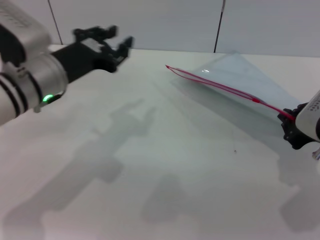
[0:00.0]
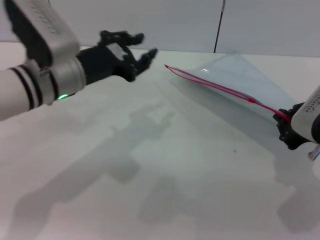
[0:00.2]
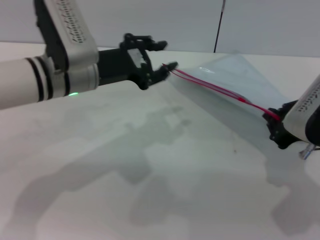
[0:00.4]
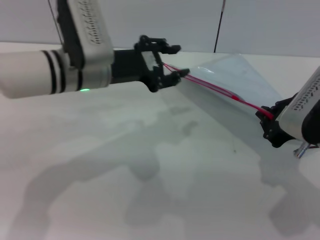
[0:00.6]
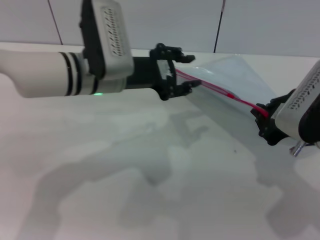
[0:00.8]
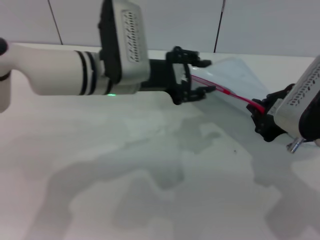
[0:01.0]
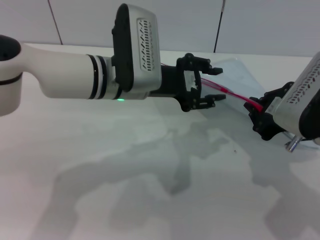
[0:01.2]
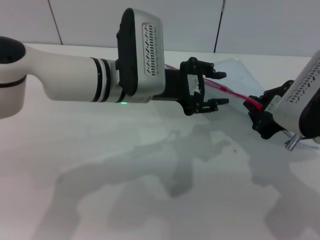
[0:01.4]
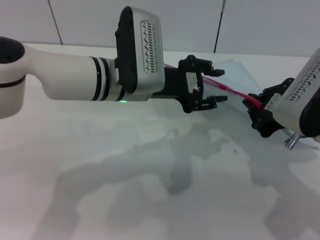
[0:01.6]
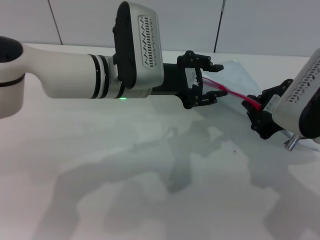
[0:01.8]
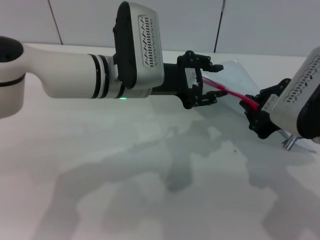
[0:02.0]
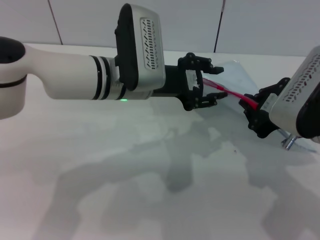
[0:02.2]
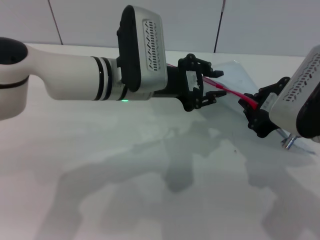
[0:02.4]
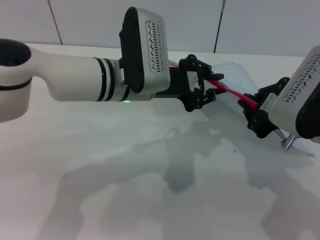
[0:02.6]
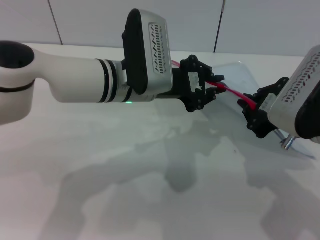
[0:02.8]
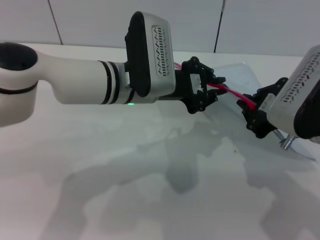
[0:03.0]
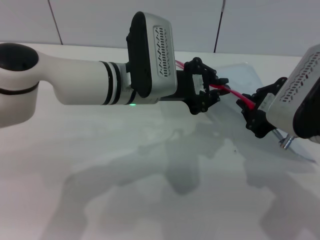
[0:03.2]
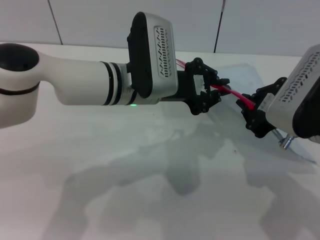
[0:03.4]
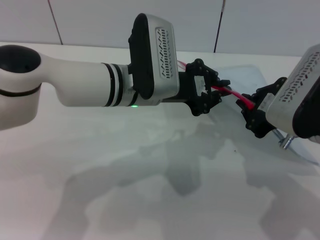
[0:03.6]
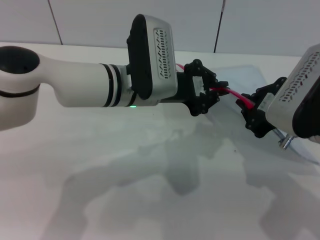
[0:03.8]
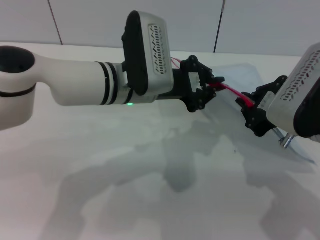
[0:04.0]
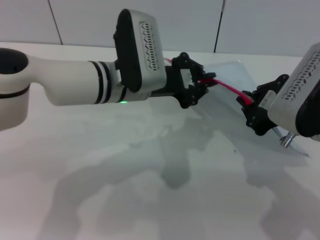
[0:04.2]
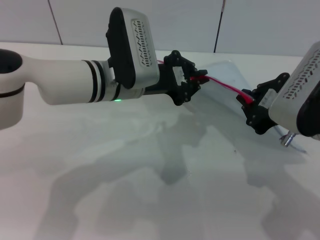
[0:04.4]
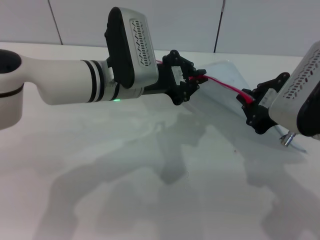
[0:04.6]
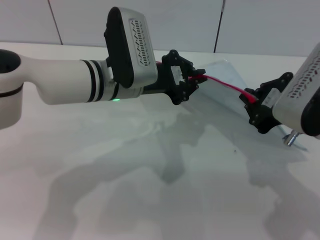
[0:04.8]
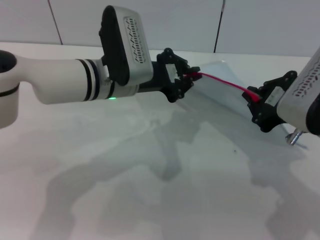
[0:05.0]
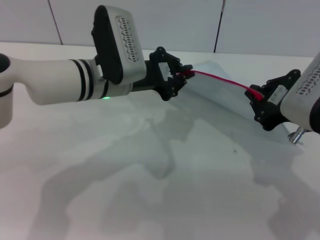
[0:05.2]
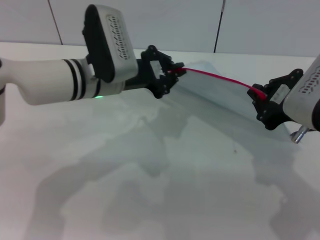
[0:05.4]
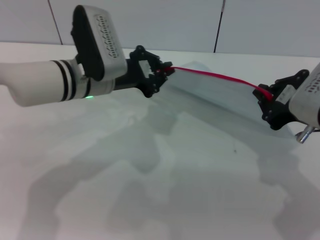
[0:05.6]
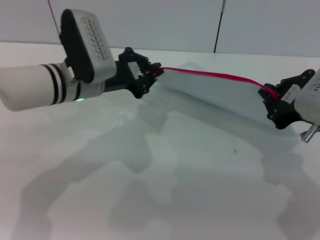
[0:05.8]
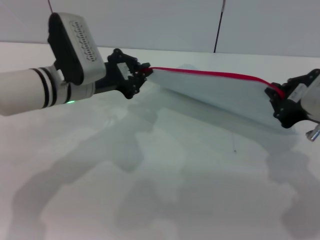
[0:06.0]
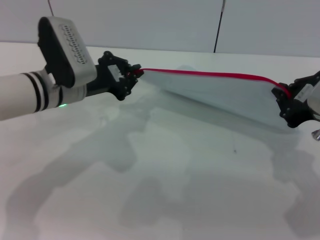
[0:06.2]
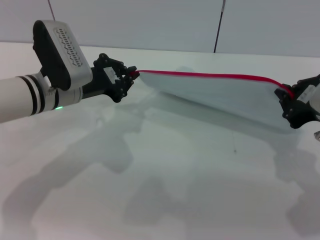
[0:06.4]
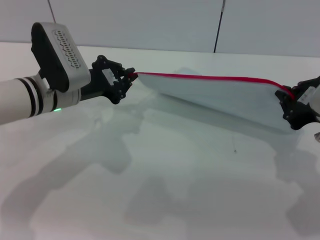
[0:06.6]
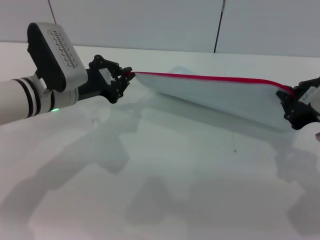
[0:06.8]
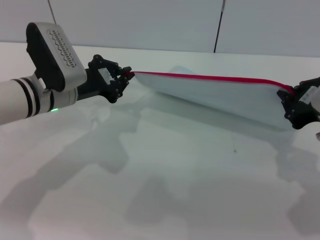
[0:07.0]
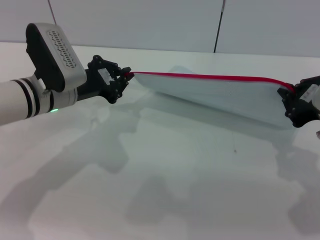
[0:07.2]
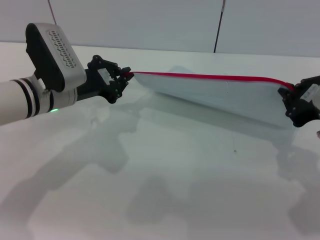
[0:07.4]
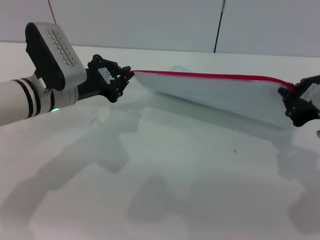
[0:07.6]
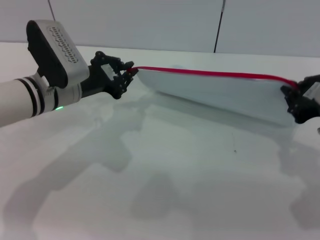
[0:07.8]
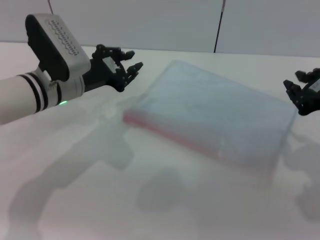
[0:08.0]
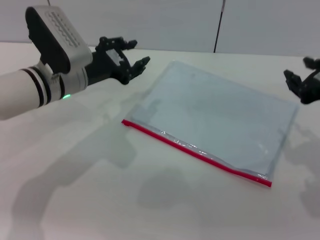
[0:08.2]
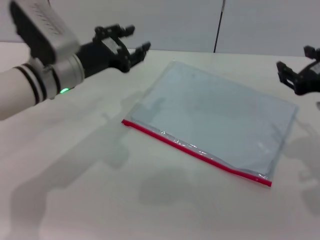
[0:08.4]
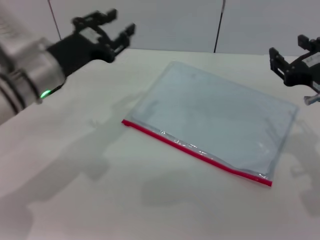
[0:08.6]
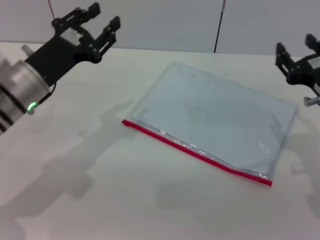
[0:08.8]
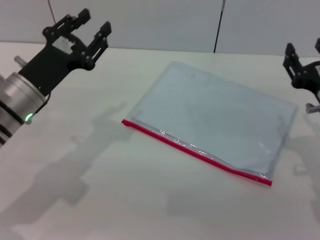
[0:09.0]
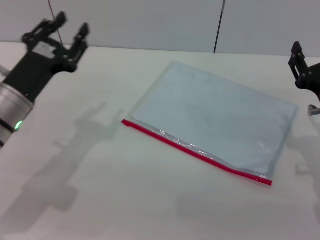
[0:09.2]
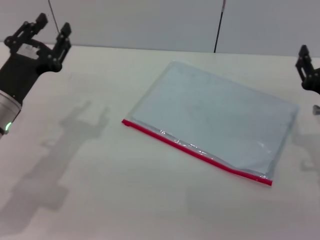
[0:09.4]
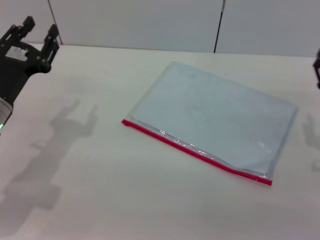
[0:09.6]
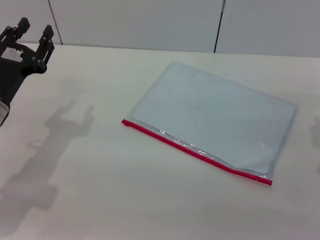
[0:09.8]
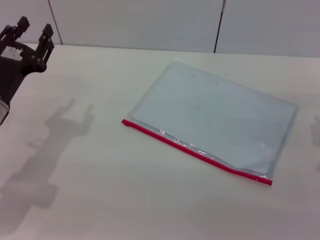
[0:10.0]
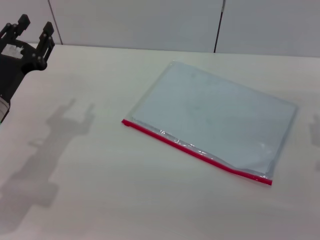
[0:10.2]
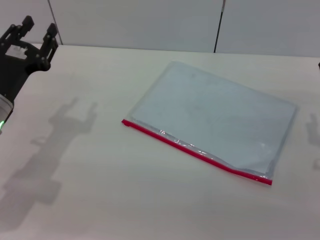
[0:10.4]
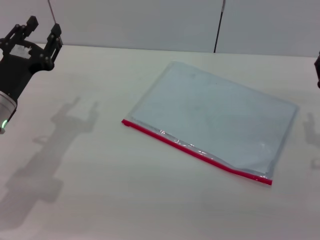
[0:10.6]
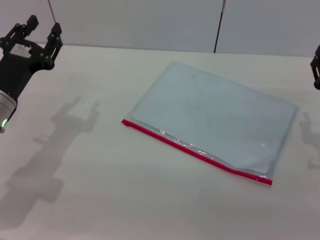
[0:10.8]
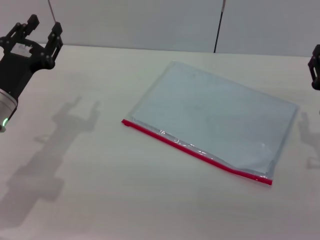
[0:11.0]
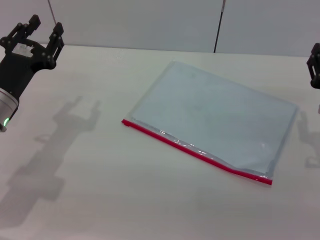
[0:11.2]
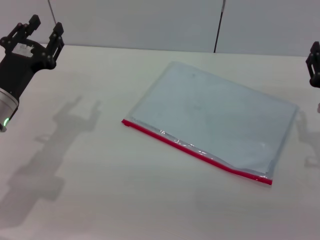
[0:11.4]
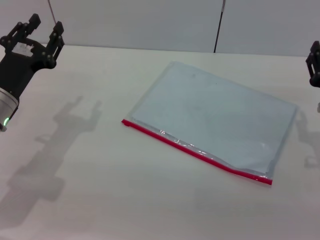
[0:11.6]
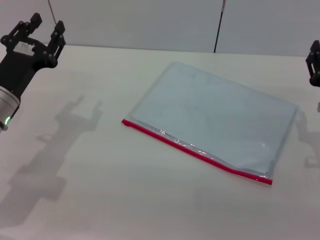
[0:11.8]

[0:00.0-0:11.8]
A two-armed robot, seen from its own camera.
Step, 0:00.0 to 0:07.8: Pulling up the zipper on the transparent plastic bag with the left gripper to close it.
Step, 0:08.0 to 0:08.4: Place the transparent plastic bag.
0:00.0 to 0:01.4: The left gripper is displaced to the right by roughly 10 cm.
0:01.4 to 0:03.0: The left gripper closes its fingers.
0:03.0 to 0:04.4: The grippers stay close to where they were, moving slightly.
0:04.4 to 0:06.0: The left gripper shifts some 10 cm to the left.
0:06.0 to 0:07.4: The grippers stay close to where they were, moving slightly.
0:07.4 to 0:08.8: The right gripper travels downward by roughly 5 cm, and opens its fingers. Meanwhile the left gripper changes place by about 5 cm, and opens up.
0:08.8 to 0:10.4: The left gripper moves roughly 5 cm, while the right gripper heads downward, covering some 5 cm.
0:10.4 to 0:11.8: Neither gripper changes place.

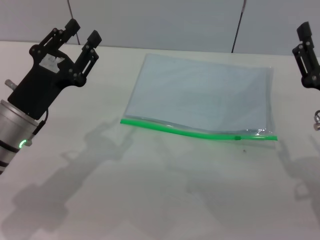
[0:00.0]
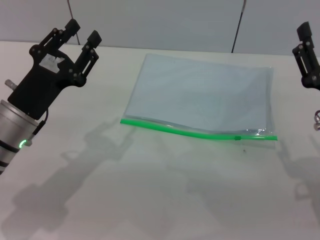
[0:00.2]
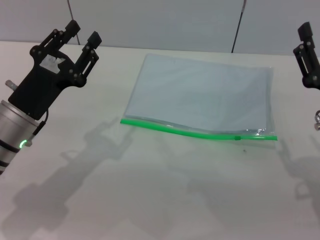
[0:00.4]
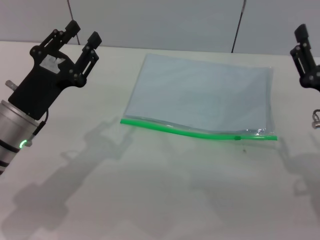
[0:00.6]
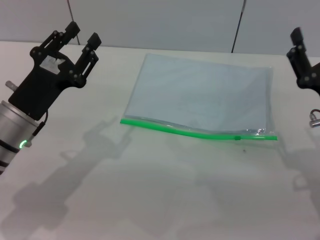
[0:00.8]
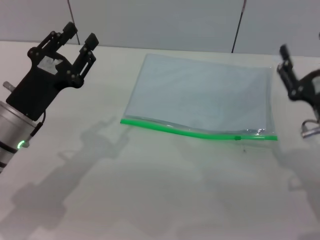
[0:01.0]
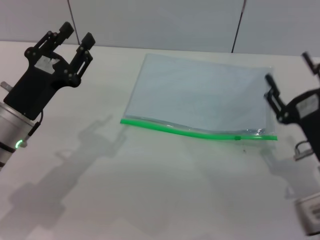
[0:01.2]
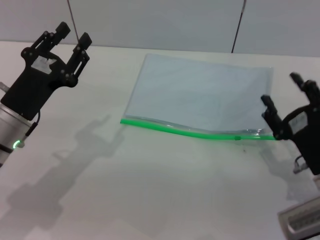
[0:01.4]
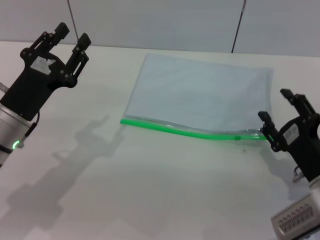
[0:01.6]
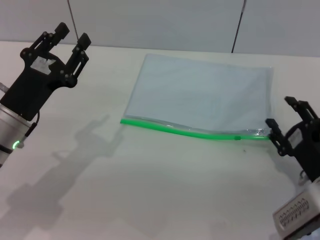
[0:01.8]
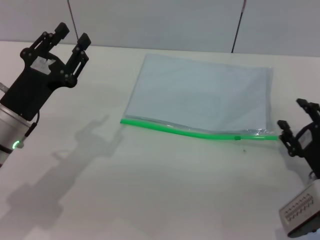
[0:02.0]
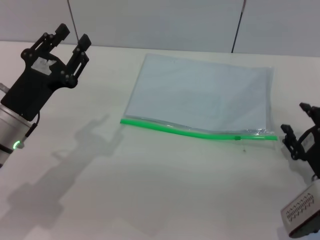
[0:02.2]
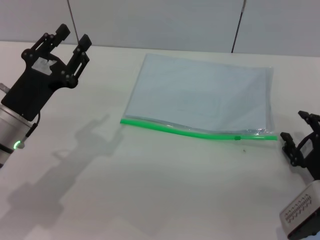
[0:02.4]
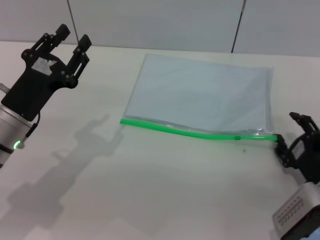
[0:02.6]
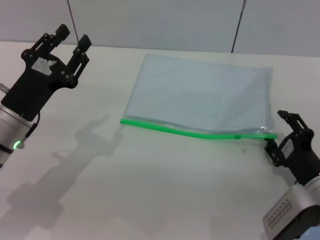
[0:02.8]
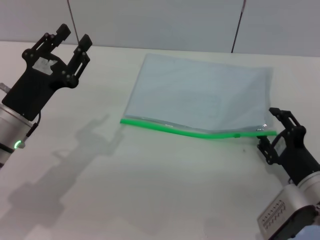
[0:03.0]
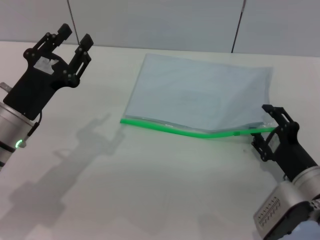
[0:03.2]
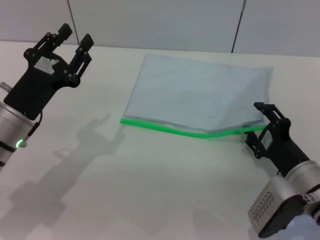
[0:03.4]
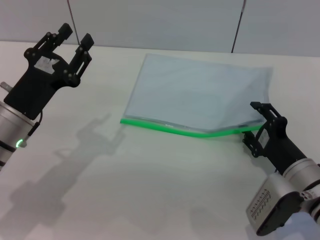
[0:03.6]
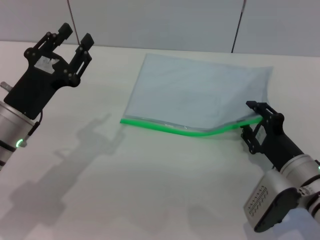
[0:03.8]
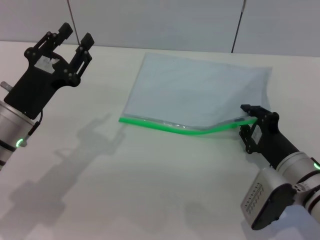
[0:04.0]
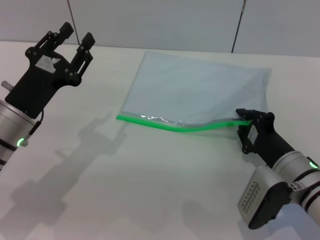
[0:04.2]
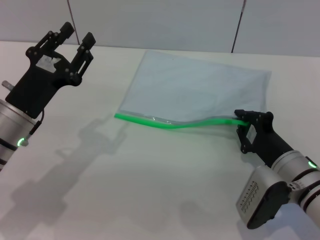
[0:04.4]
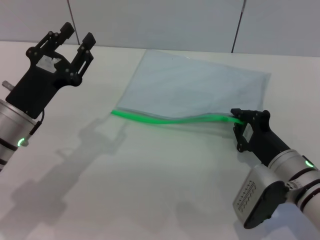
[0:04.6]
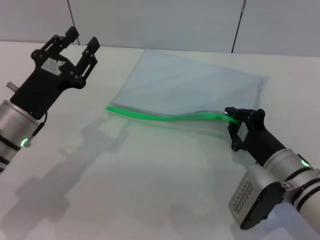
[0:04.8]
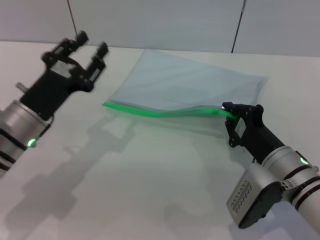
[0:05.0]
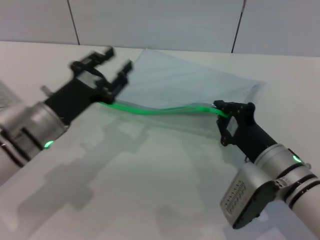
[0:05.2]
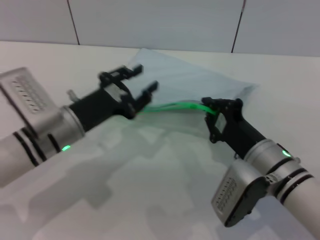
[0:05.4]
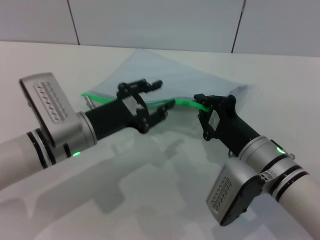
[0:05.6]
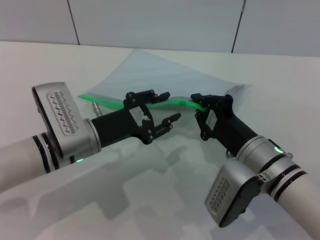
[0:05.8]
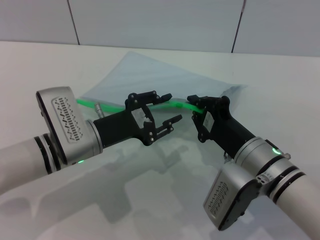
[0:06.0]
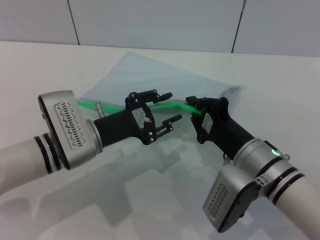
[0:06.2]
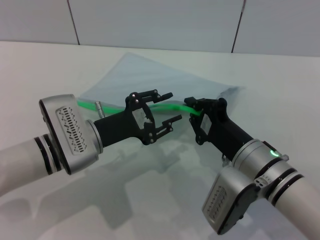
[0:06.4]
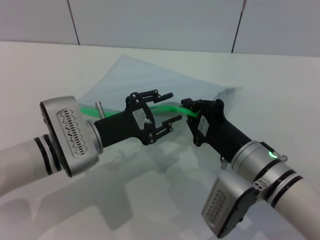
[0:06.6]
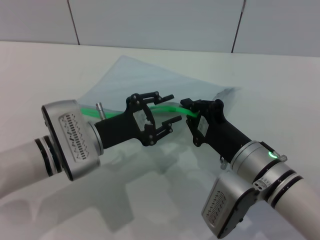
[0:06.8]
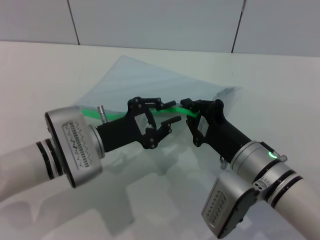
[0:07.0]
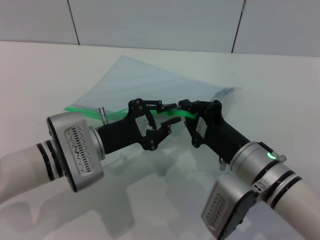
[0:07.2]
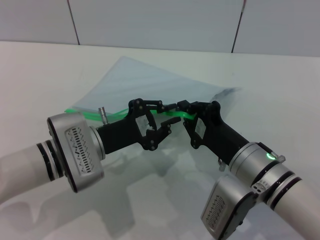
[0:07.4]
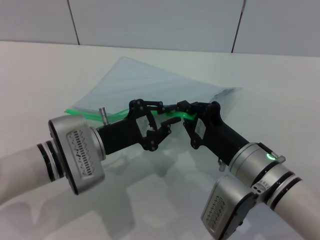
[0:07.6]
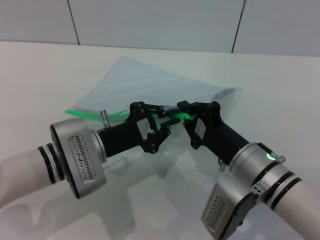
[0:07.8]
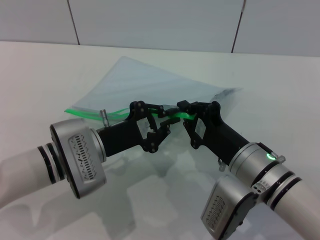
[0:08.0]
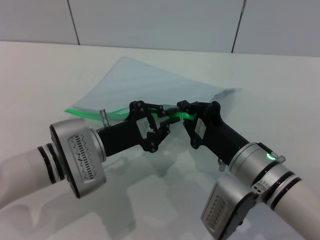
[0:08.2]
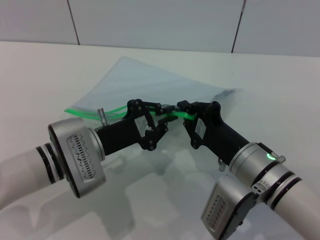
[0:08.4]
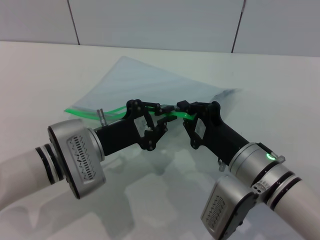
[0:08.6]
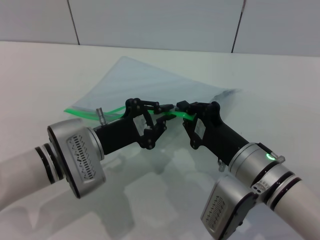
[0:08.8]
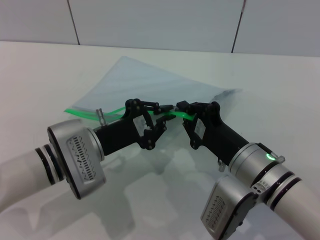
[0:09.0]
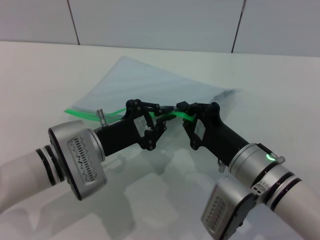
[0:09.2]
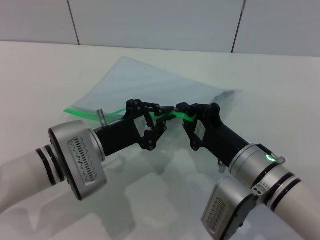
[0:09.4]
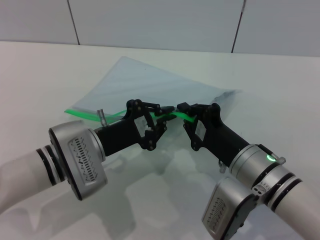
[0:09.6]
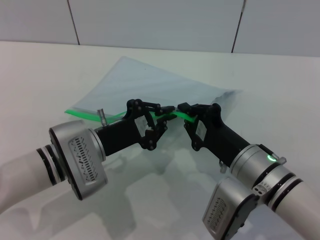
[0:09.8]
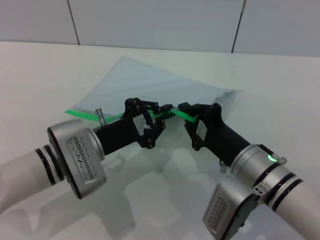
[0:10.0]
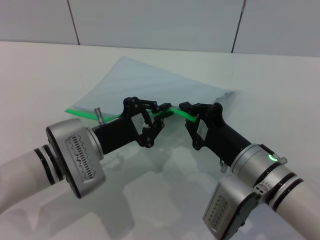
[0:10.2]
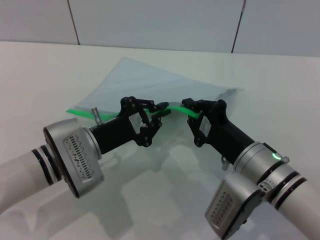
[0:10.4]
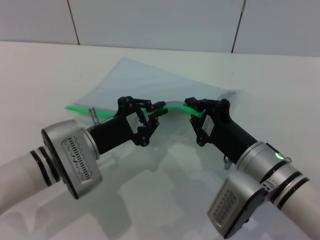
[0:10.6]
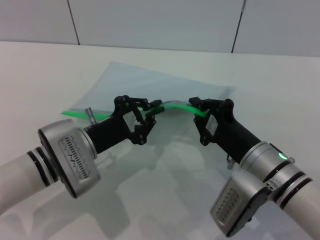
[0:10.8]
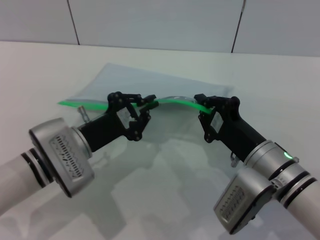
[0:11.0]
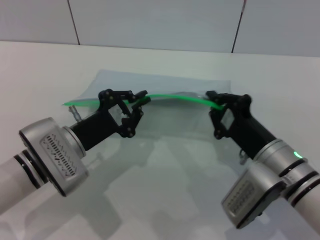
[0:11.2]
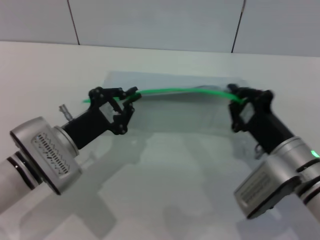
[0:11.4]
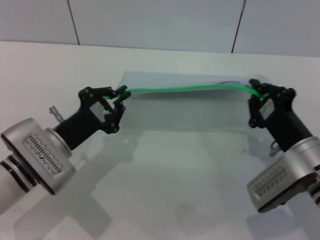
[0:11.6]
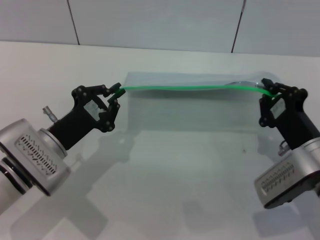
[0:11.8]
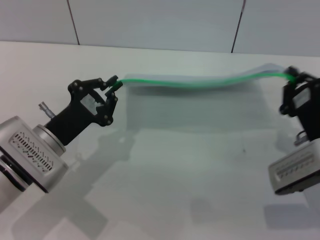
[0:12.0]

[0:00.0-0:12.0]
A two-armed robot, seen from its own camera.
Step, 0:00.0 to 0:04.8: Pick up the transparent plastic bag with the right gripper.
0:00.0 to 0:01.6: The right gripper goes roughly 5 cm downward.
0:01.6 to 0:03.0: The grippers stay close to where they were, moving slightly.
0:03.0 to 0:04.4: The right gripper closes.
0:04.4 to 0:06.0: The right gripper heads to the left, covering roughly 5 cm. The left gripper goes approximately 5 cm to the right.
0:06.0 to 0:07.6: The left gripper closes.
0:07.6 to 0:09.0: Both grippers stay put.
0:09.0 to 0:10.4: Both grippers stay put.
0:10.4 to 0:12.0: The right gripper is displaced to the right by about 10 cm.
